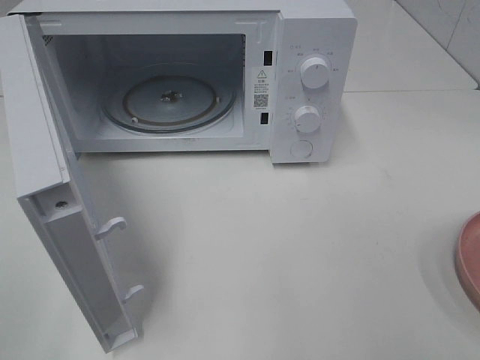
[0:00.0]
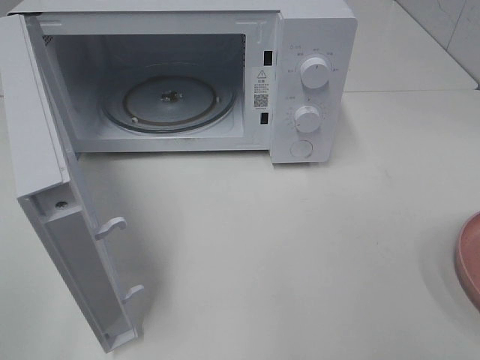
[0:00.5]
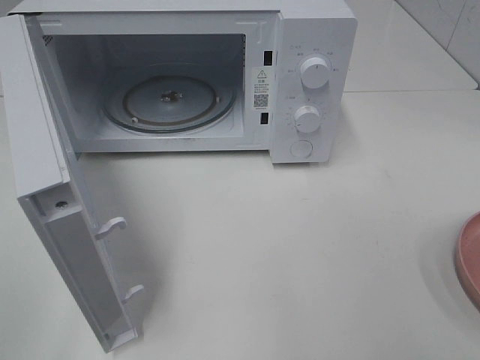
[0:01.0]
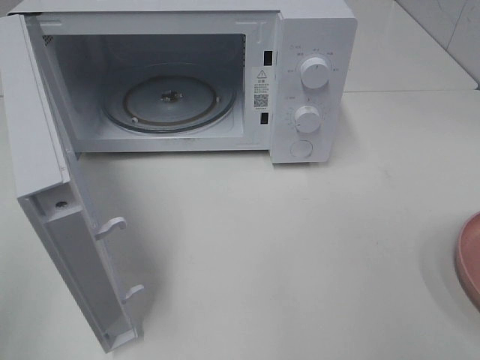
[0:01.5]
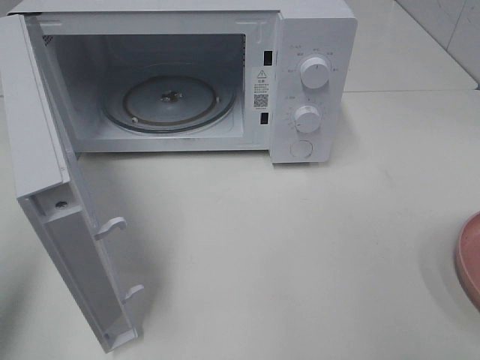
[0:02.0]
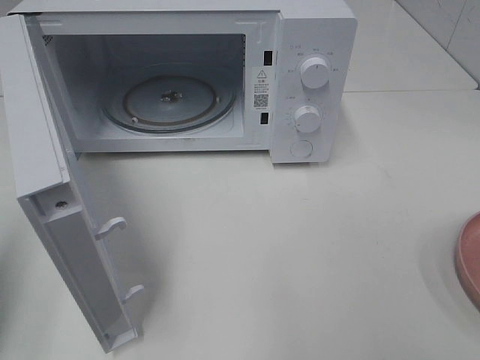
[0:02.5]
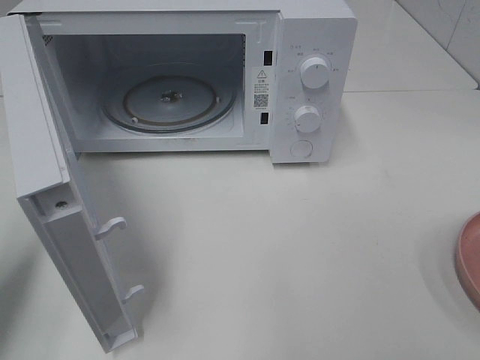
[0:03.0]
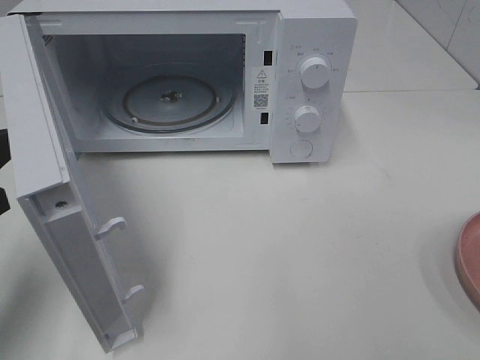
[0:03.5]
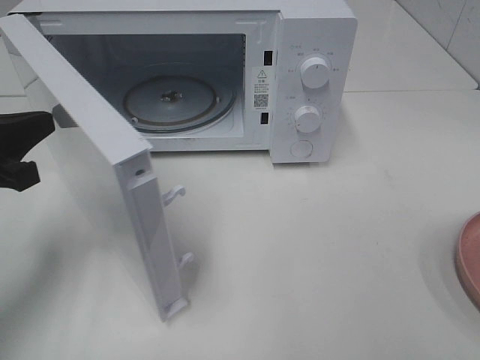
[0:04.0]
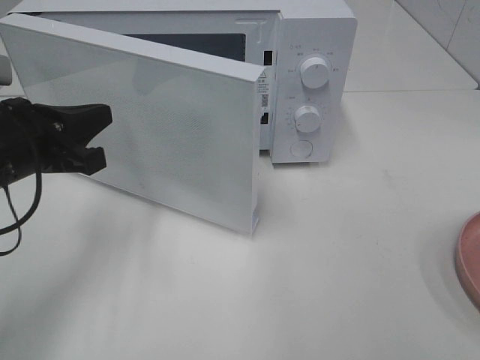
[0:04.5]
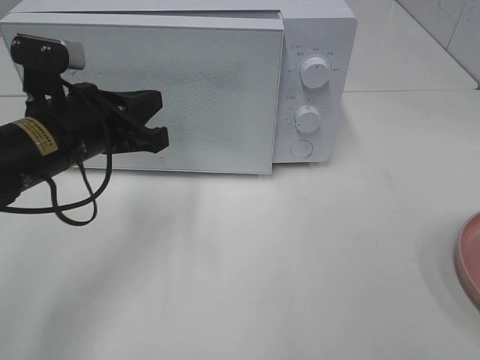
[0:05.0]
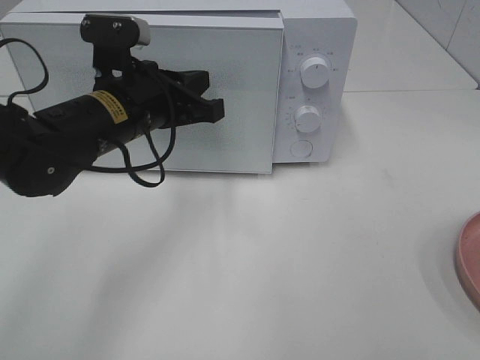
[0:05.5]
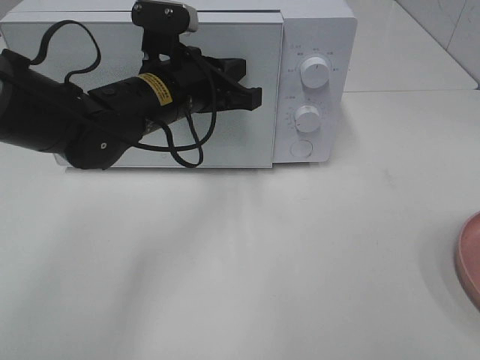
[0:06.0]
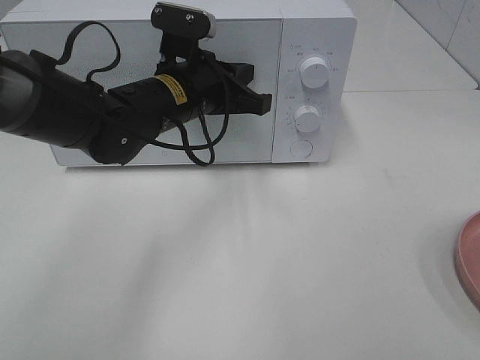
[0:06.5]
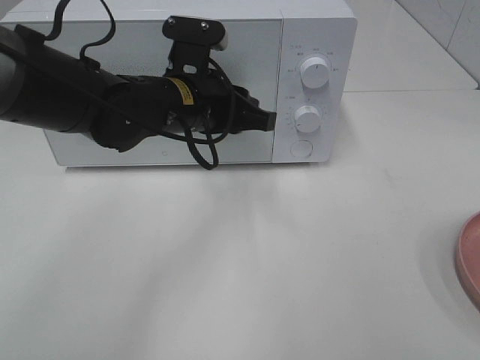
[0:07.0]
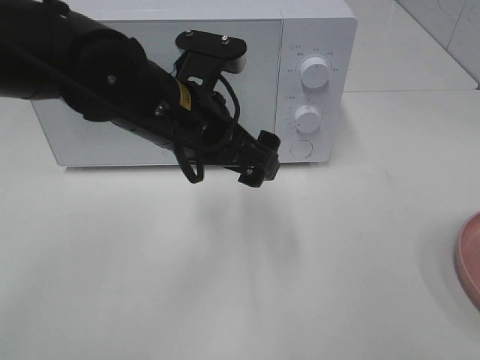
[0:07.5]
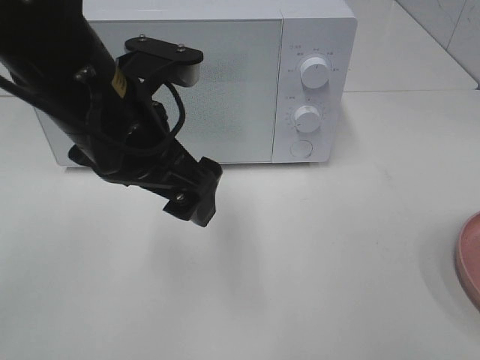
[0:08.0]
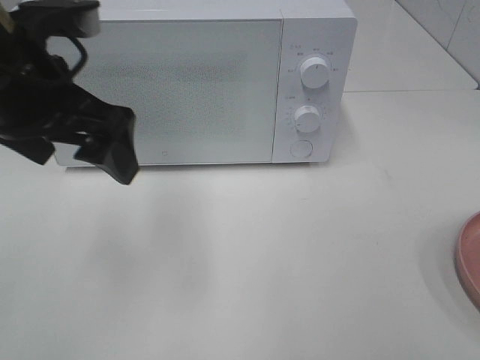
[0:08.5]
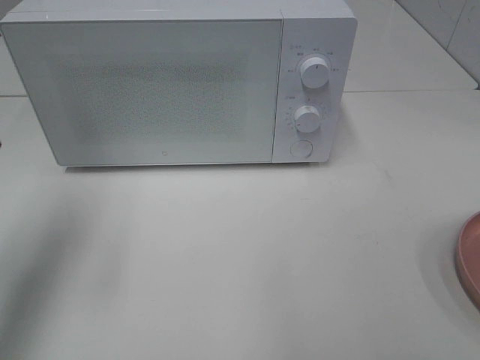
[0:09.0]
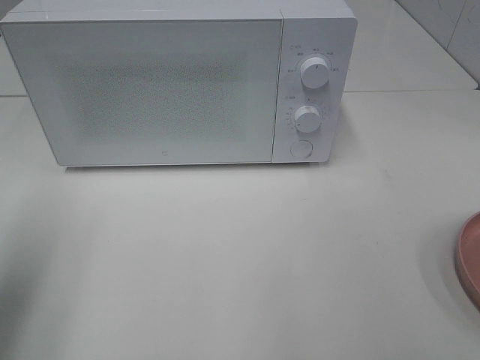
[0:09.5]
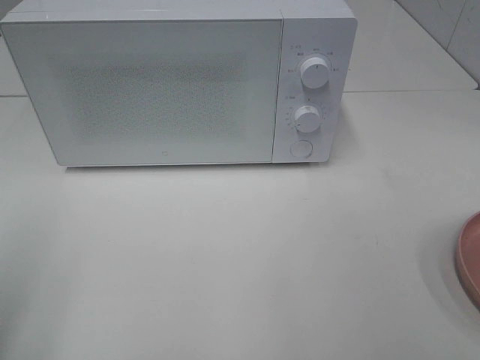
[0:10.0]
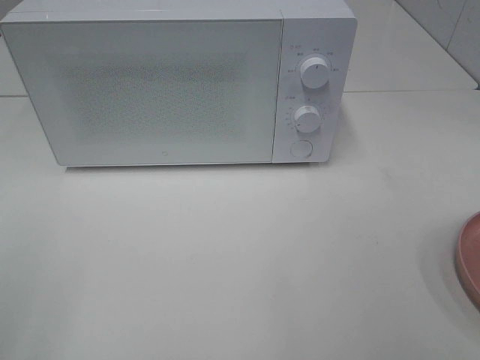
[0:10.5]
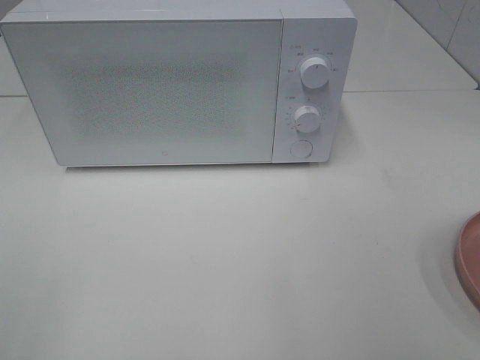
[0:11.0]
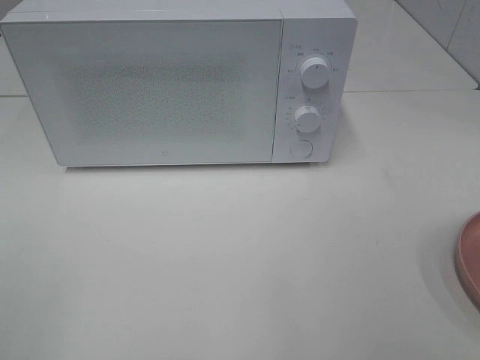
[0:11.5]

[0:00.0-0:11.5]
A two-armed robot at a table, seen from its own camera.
Task of the whole recording: Heat the burger.
Step, 0:00.0 to 0:06.5: Left hand: close the microwave door.
0:00.0 to 0:02.0: The left gripper is displaced forward by some 10 cm, and closes up.
0:02.0 to 0:04.0: The left gripper heads forward, downward and to the right, covering roughly 15 cm.
0:04.0 to 0:06.0: The left gripper moves to the right and forward, approximately 25 cm.
0:06.0 to 0:07.5: The left gripper is displaced backward by approximately 5 cm, and opens.
0:07.5 to 0:09.5: The left gripper is displaced to the left and backward by about 30 cm.
0:09.5 to 0:11.5: The left gripper goes some 15 cm backward.

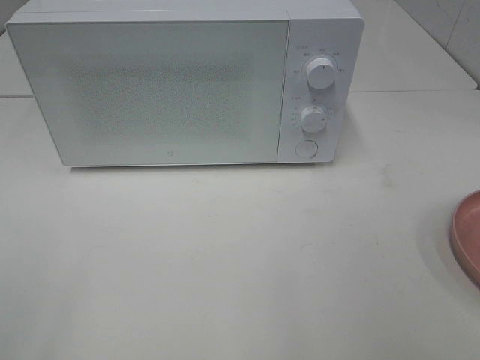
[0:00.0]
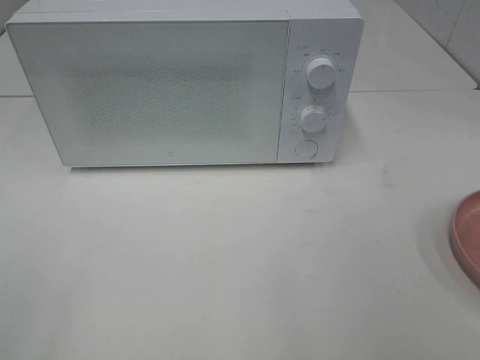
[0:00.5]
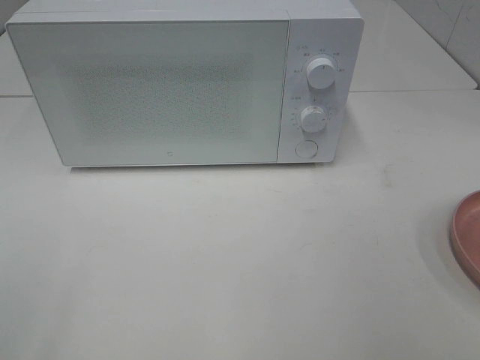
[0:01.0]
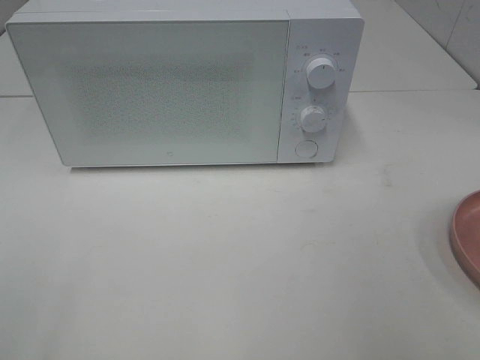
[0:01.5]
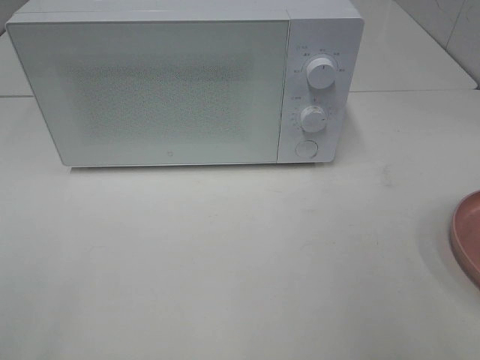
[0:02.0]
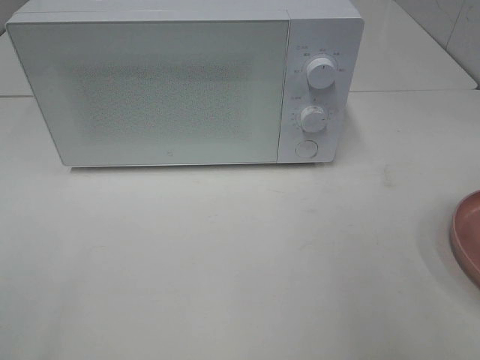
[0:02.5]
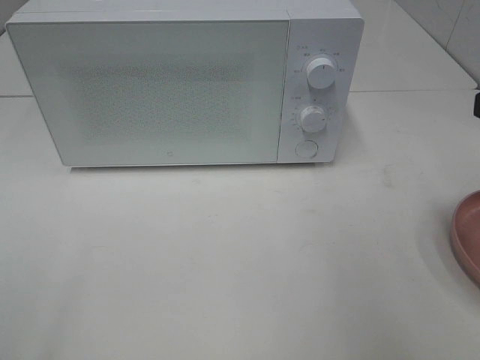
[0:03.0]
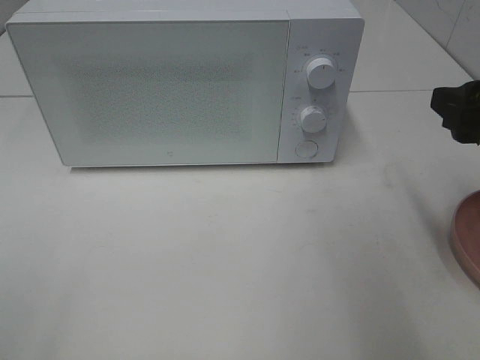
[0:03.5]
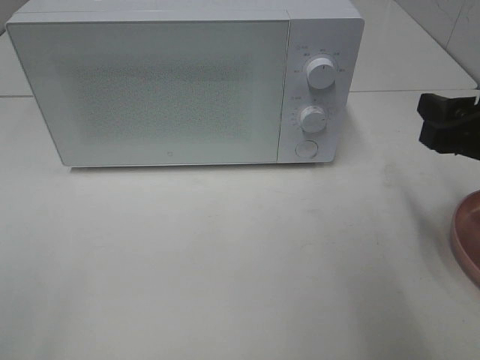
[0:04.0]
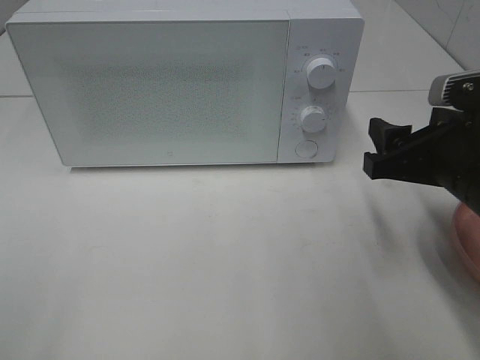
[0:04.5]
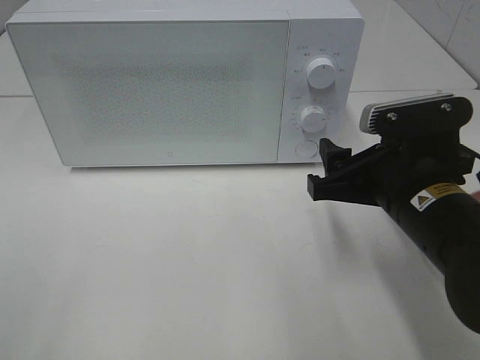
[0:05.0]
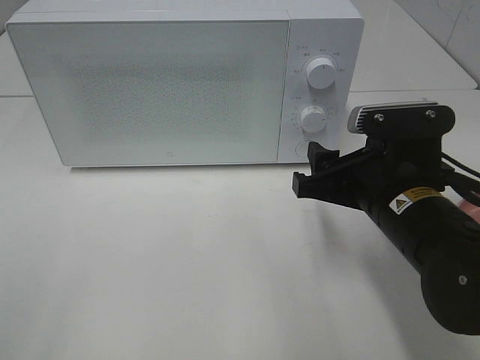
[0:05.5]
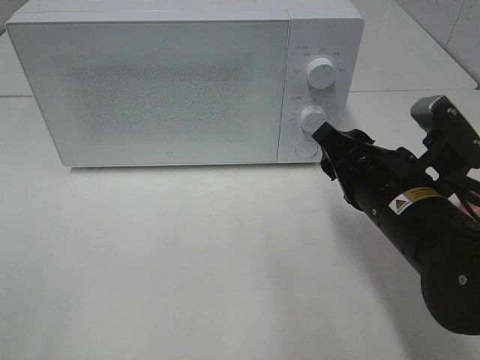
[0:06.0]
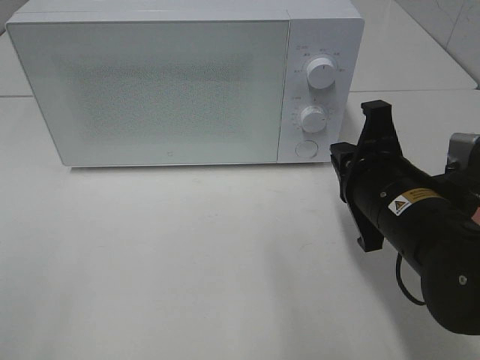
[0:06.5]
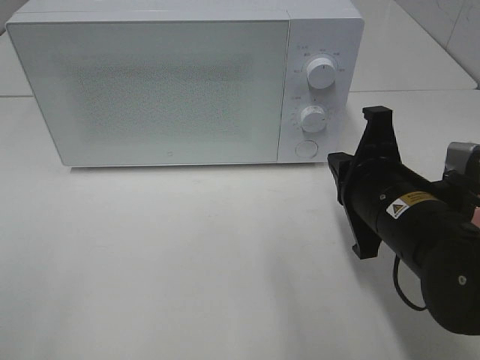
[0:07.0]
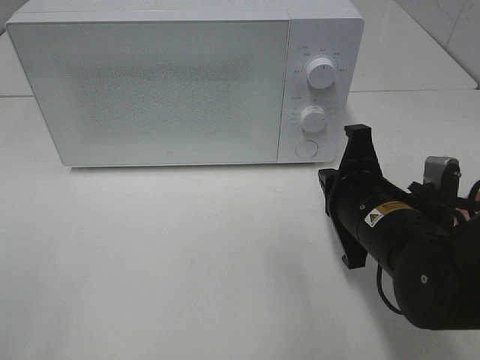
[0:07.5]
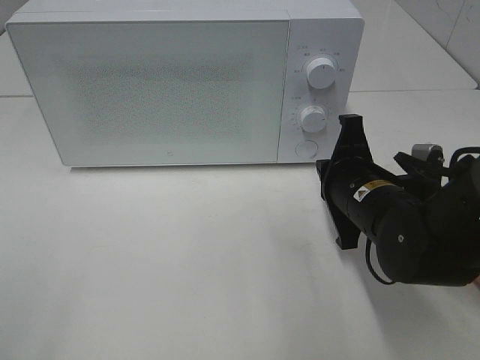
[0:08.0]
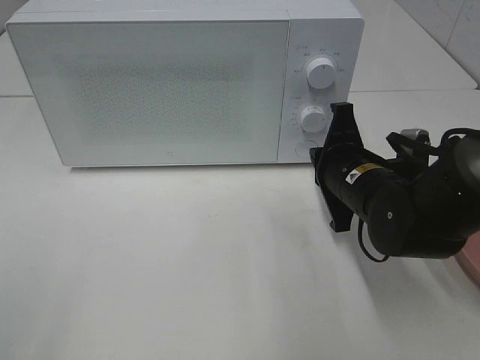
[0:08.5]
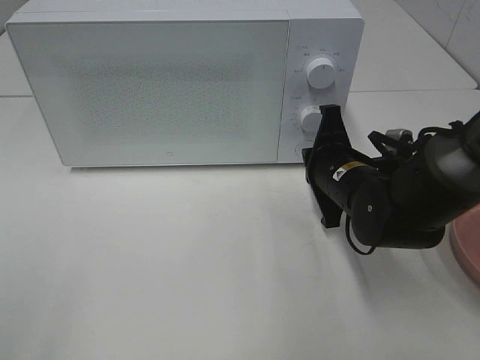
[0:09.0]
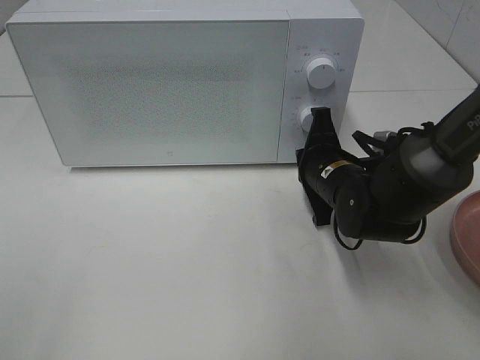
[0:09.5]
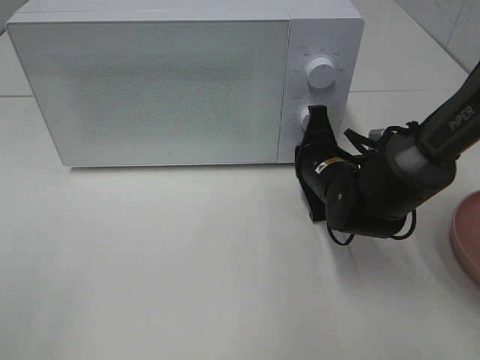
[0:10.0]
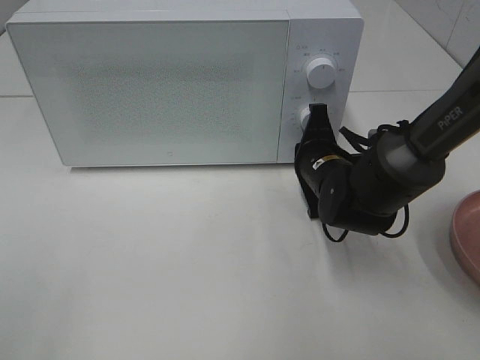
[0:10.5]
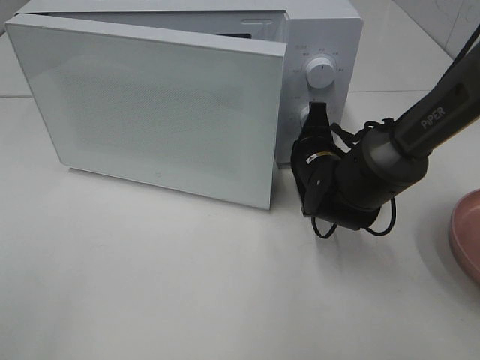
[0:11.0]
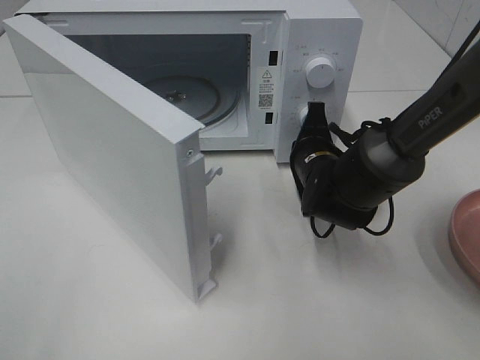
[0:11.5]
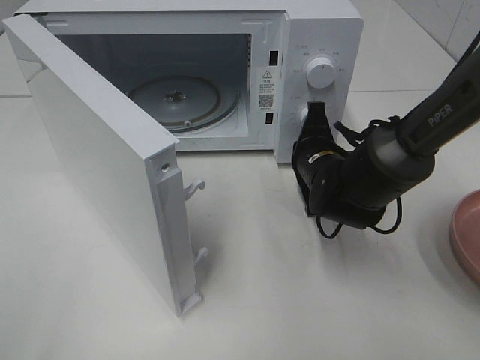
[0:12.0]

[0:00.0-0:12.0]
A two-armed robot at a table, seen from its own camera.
Task of the whole recording: Heat the burger.
0:02.0 to 0:04.0: The right gripper moves forward and downward, approximately 15 cm.
0:04.0 to 0:06.0: The right gripper heads to the left and downward, covering approximately 10 cm.
0:06.0 to 0:08.0: The right gripper shifts by approximately 5 cm, and closes.
0:08.0 to 0:10.0: The right gripper goes roughly 5 cm forward.

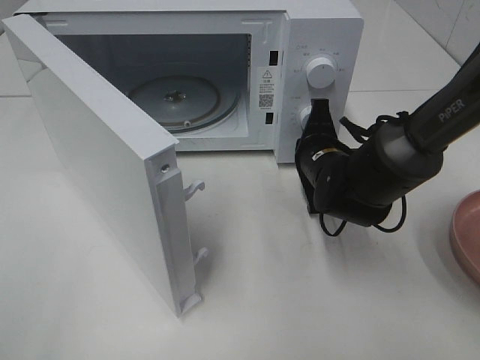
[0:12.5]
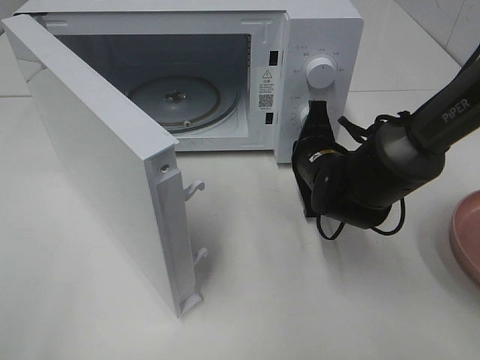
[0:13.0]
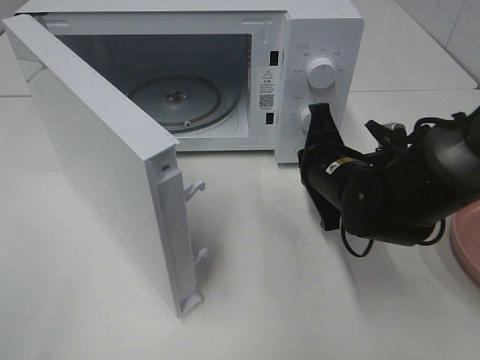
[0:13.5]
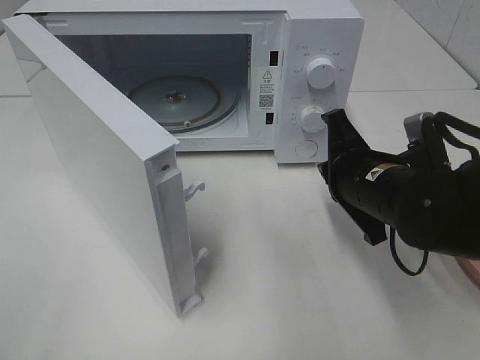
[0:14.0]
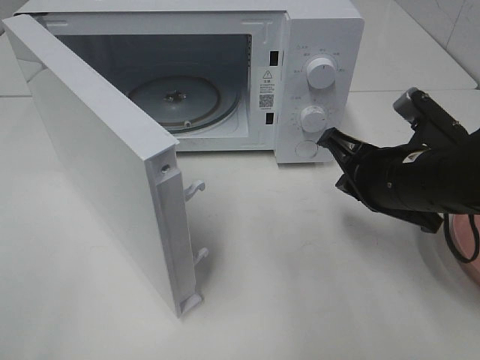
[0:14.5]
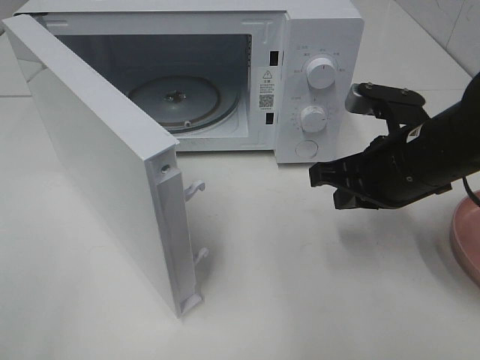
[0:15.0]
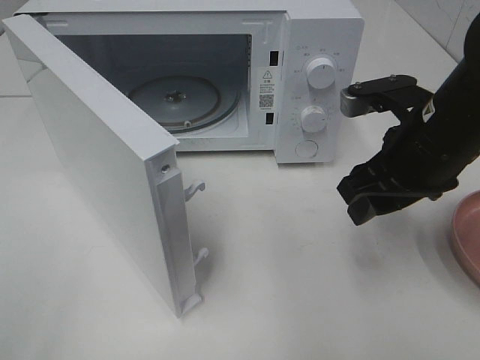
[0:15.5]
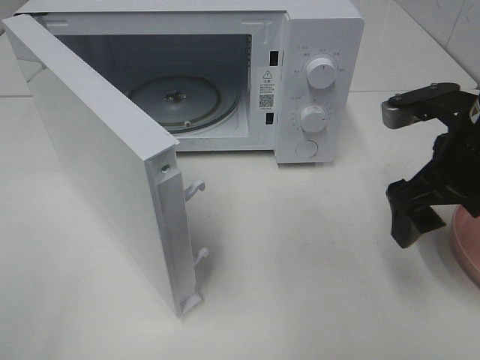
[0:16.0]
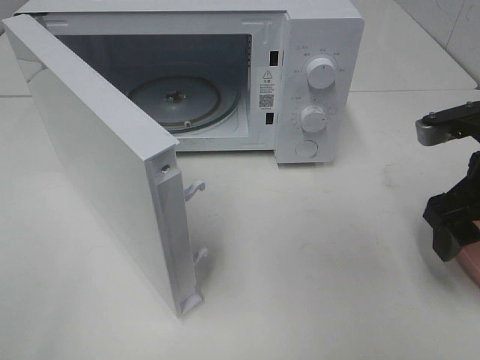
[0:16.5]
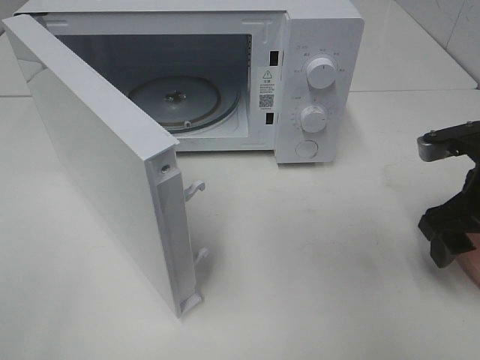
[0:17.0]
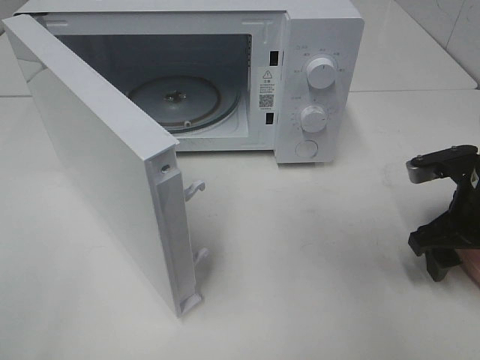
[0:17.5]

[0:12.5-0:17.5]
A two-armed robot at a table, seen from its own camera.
Task of the whole recording: Heat the burger.
0:12.5 to 0:15.0: The right gripper travels upward and backward by about 10 cm.
0:15.0 to 0:17.5: The right gripper moves to the right, approximately 10 cm, and opens.
